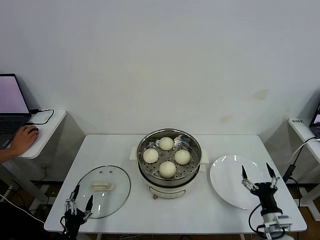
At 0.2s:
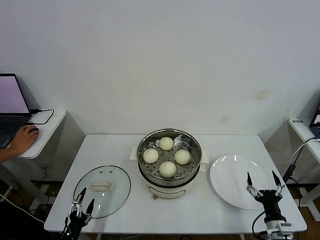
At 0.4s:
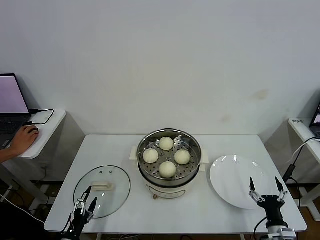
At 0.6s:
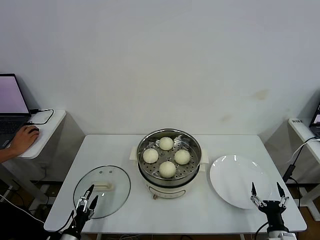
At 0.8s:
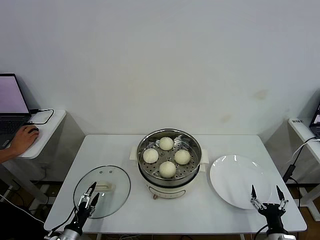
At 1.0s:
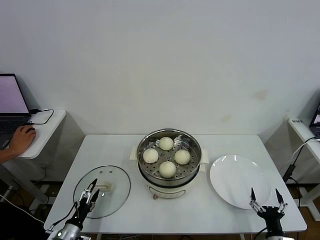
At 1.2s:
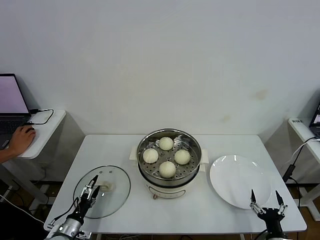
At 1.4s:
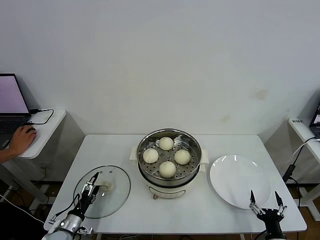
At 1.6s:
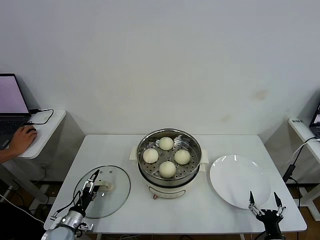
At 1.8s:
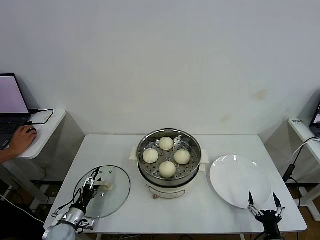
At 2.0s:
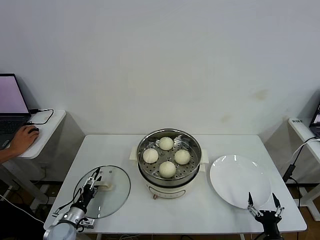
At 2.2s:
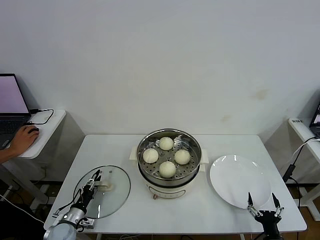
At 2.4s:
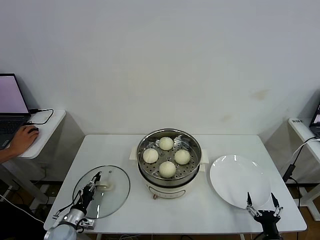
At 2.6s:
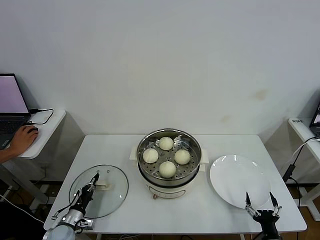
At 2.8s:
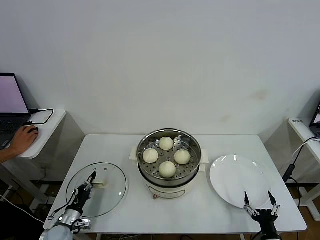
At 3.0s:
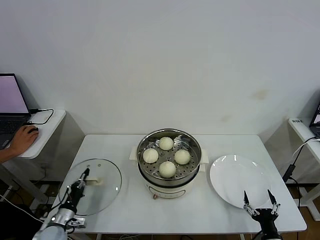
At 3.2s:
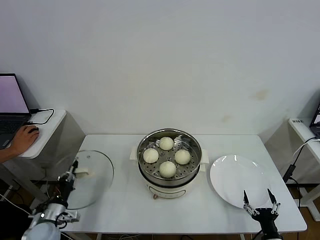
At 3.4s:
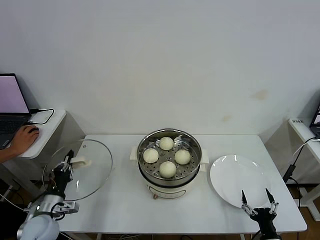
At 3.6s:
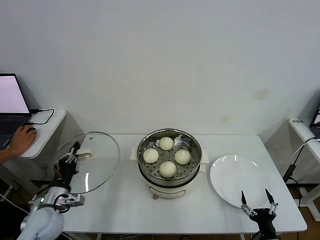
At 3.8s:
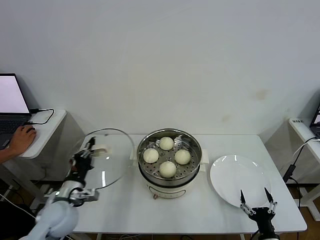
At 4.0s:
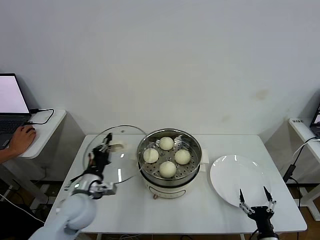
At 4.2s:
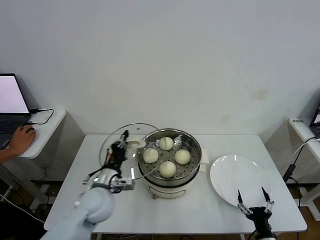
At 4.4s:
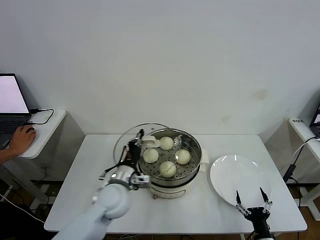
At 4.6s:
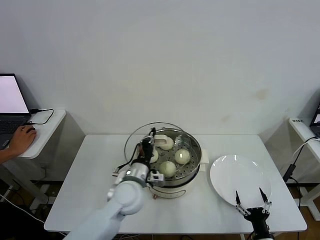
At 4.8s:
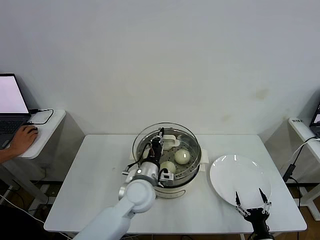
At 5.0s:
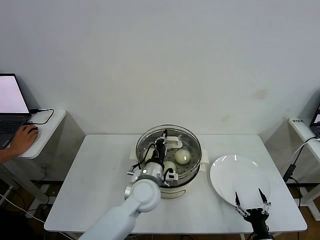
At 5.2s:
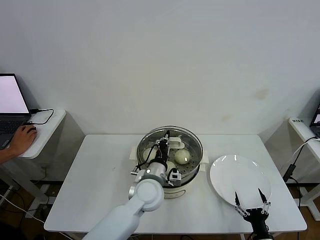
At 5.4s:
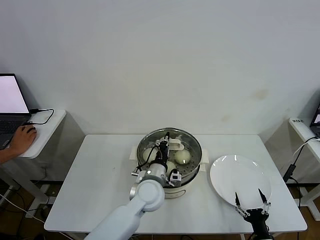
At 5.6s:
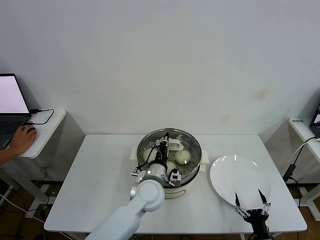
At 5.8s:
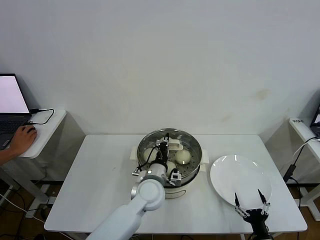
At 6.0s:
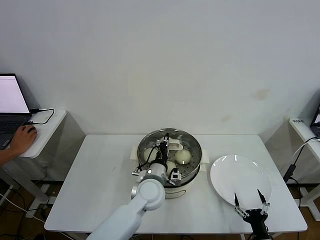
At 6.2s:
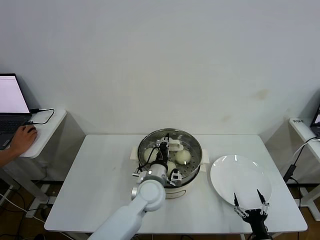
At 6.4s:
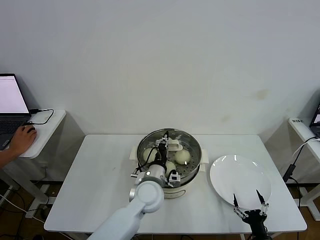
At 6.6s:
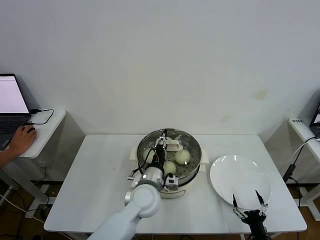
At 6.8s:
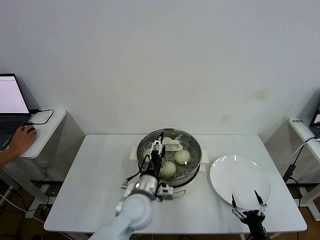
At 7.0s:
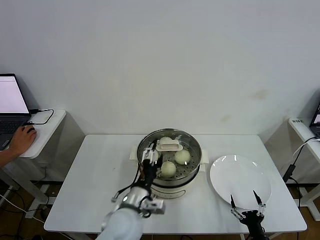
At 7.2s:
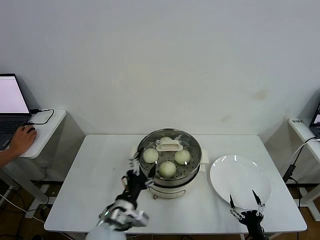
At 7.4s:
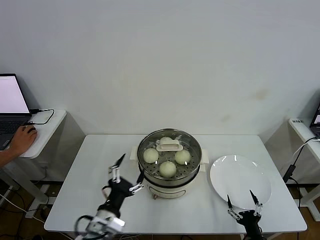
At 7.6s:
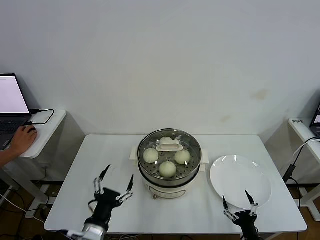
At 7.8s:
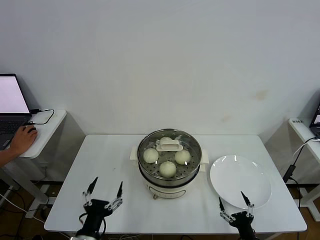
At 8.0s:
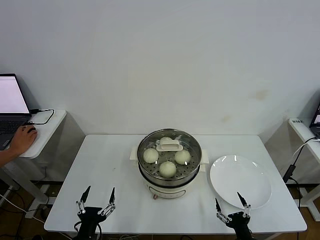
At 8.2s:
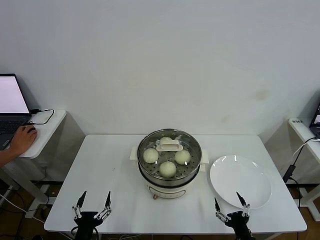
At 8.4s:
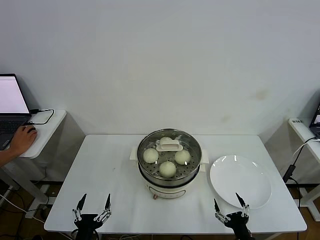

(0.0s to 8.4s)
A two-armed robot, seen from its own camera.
Step, 0.0s - 2.6s: Grasp the pot lid with left gripper.
Step, 2.8s - 6.8s: Place the pot lid on the steamer with left gripper.
0.0s - 1.4s: The left gripper shifts approximately 10 cm forward. Meanwhile the right gripper is displaced backward and downward by roughly 10 cm.
1.4s - 2.8s: The left gripper closes its fingers.
2.8s - 4.2s: The left gripper travels upward and to the right by about 25 cm.
4.2s - 5.6s: The left gripper goes about 15 cm to the right.
5.6s - 7.0s: The left gripper moves backward and to the left, about 10 cm, and opens up.
7.0s - 8.4s: The left gripper is displaced to the left, backward and downward by about 25 cm, while the right gripper travels to the left by approximately 5 cm.

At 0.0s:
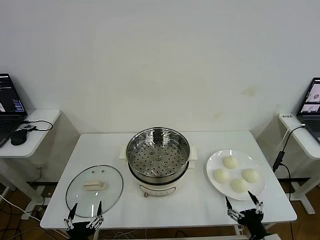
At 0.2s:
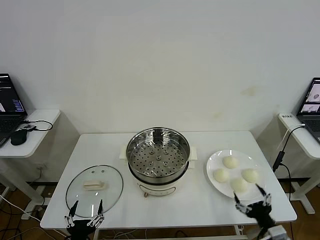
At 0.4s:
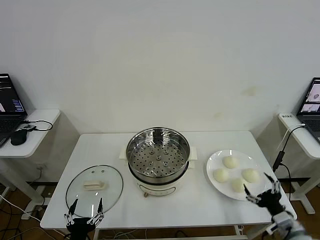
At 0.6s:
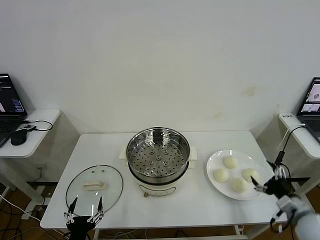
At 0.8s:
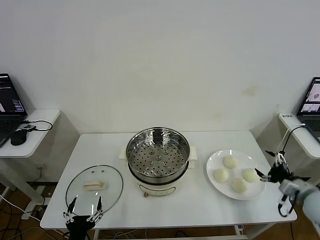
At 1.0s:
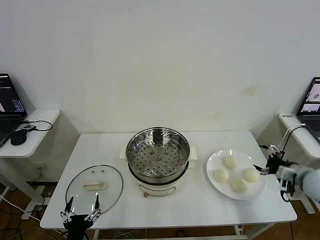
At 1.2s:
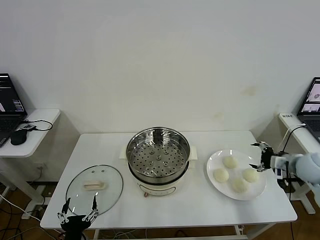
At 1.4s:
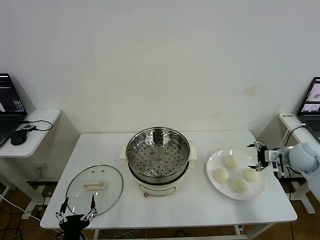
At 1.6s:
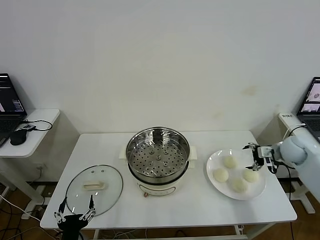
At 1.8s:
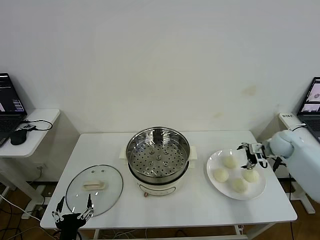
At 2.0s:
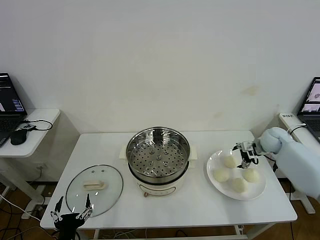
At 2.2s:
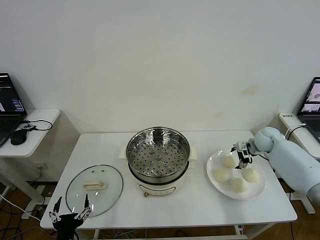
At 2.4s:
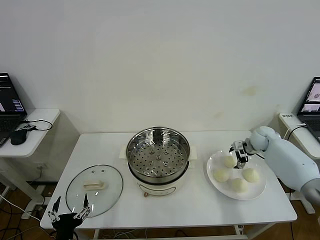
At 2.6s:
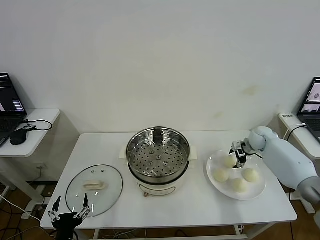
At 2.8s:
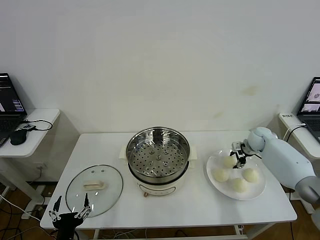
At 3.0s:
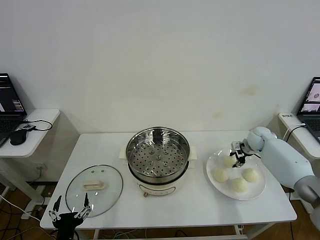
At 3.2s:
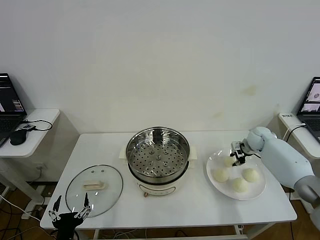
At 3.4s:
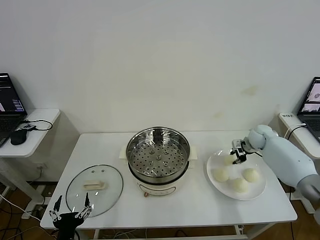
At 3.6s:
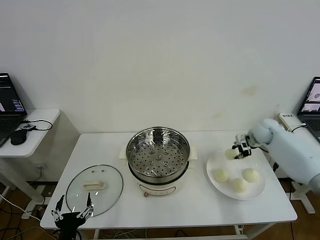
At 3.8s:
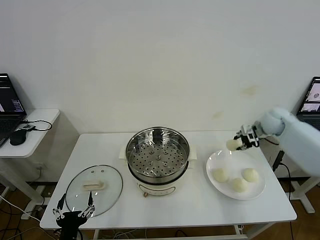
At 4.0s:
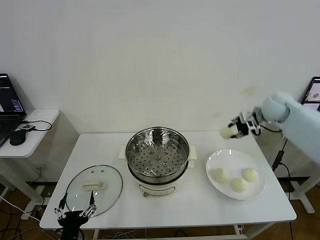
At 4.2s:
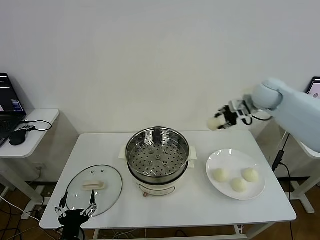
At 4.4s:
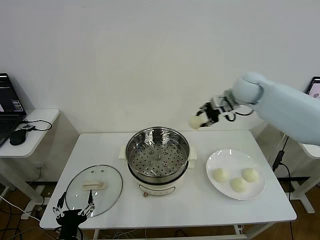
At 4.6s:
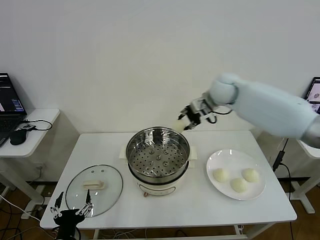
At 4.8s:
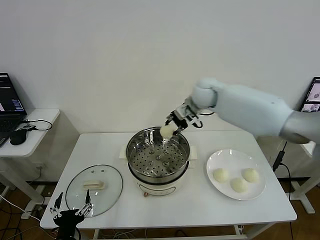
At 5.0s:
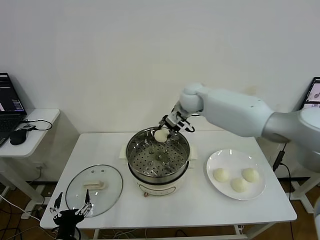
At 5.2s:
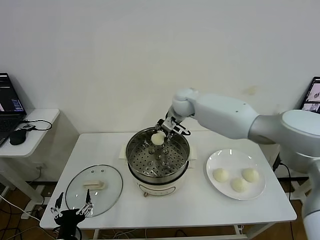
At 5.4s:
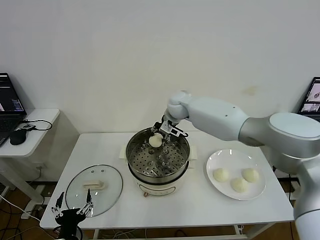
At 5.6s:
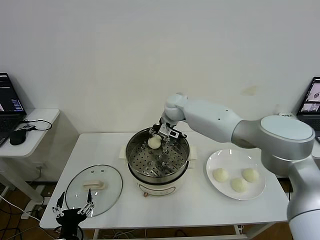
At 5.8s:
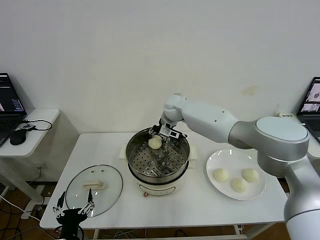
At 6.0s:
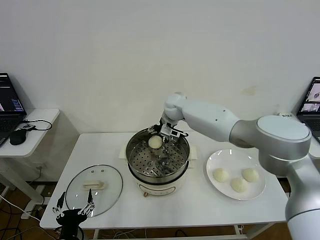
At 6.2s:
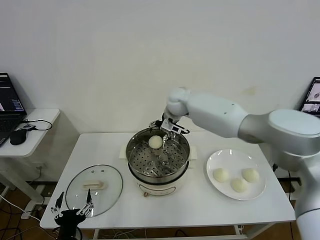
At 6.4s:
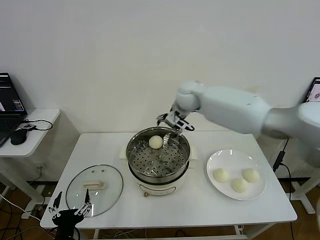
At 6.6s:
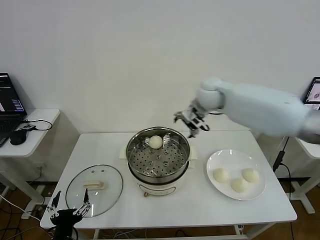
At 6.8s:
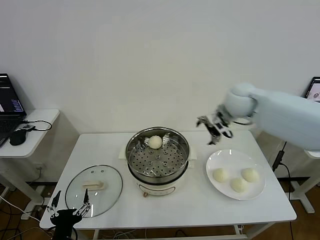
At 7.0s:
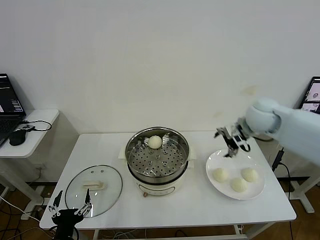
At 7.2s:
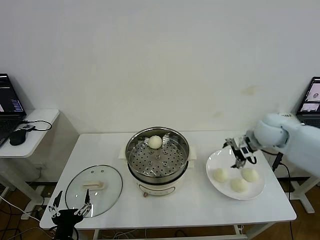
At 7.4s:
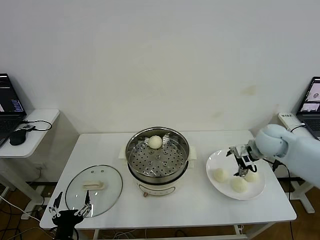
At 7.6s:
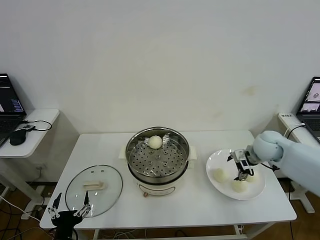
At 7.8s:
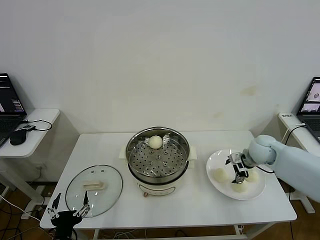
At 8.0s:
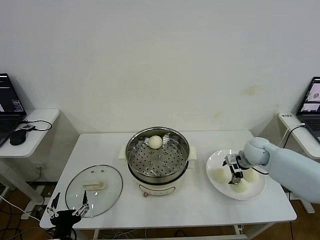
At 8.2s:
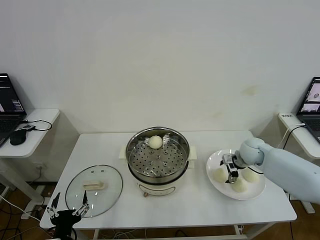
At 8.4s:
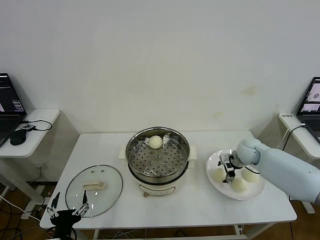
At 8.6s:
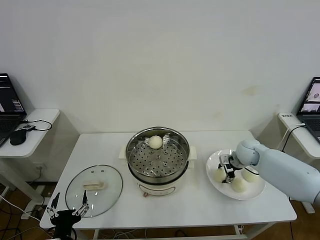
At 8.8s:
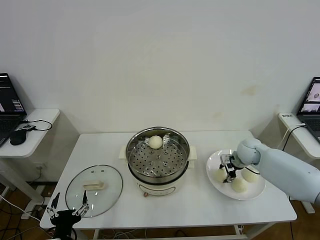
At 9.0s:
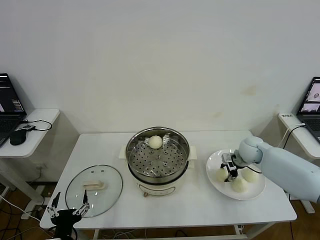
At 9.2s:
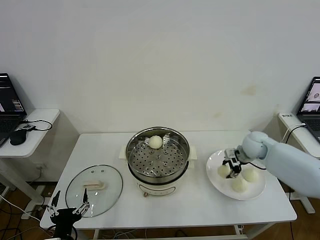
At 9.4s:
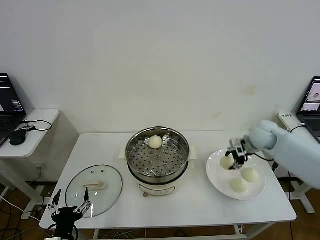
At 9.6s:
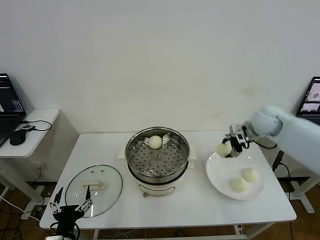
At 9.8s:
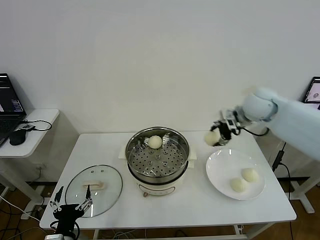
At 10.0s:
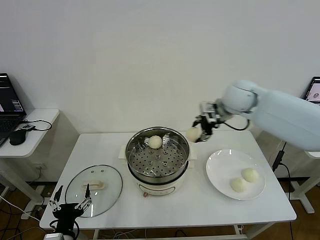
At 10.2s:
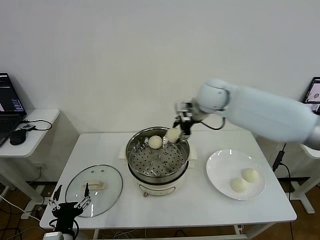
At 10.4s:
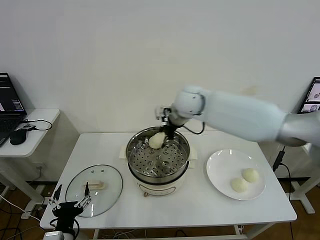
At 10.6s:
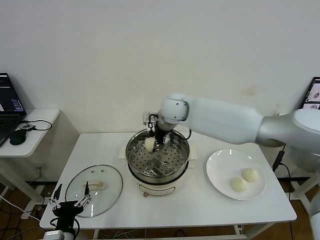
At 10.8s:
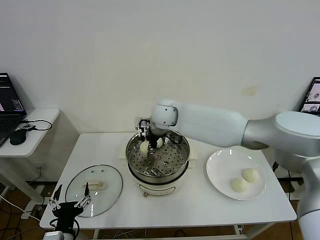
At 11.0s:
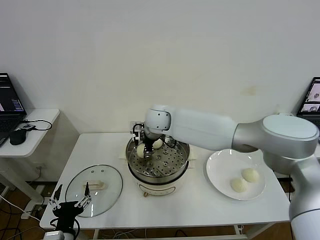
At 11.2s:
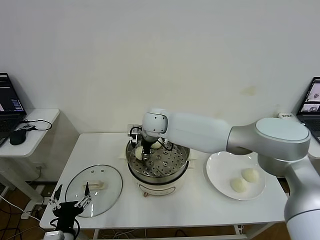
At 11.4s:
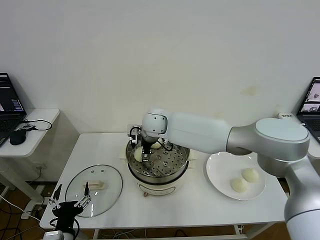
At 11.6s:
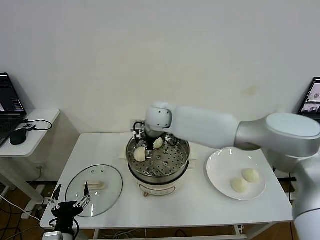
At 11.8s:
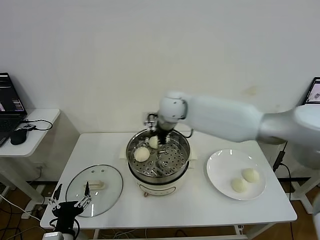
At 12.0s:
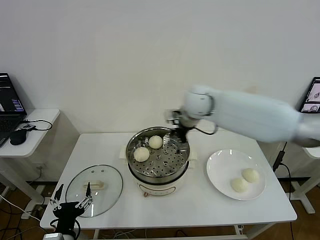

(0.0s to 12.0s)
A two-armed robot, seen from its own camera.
Step, 0.0s - 3.2s: Grasp the baozi in the plate with right gripper.
Step, 3.4s - 5.8s: Place the baozi on the steamer with right gripper.
Step, 6.2s - 8.6s: Grasp the baozi in the plate with right gripper.
Step, 8.8s - 11.4s: Place the baozi on the steamer with right gripper.
1.6s - 3.0s: The right gripper moves forward and downward, approximately 10 cm, and closes.
3.0s - 4.4s: The right gripper heads upward and to the left, covering roughly 30 cm.
4.4s - 6.0s: The right gripper shifts approximately 20 cm to the left and downward, and opens its fingers.
6.0s - 7.6s: The right gripper shifts about 35 cm to the right and backward.
7.6s - 9.0s: The right gripper closes its fingers.
9.0s - 10.4s: The right gripper goes about 35 cm to the left and upward.
10.4s - 12.0s: The right gripper is displaced to the right by approximately 10 cm, and opens up.

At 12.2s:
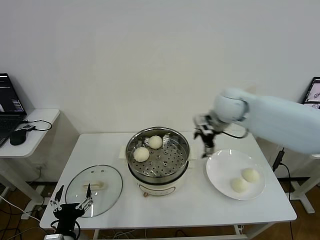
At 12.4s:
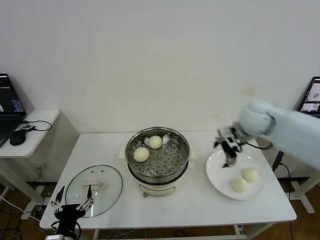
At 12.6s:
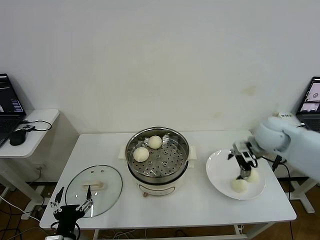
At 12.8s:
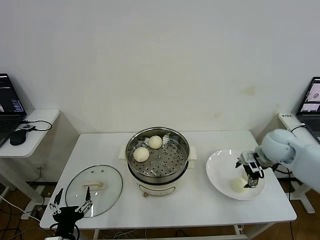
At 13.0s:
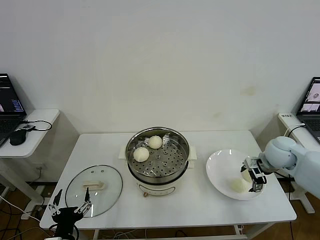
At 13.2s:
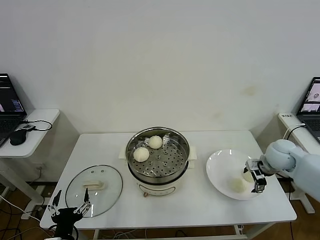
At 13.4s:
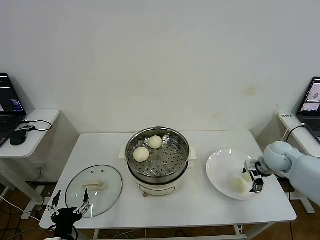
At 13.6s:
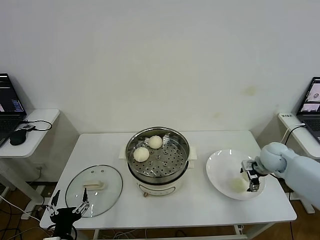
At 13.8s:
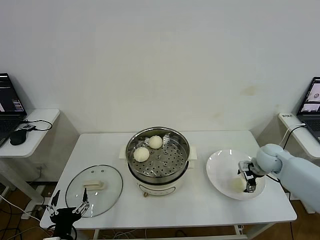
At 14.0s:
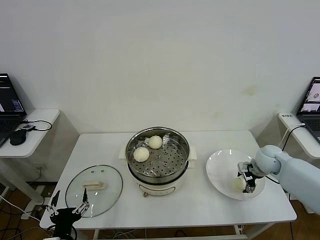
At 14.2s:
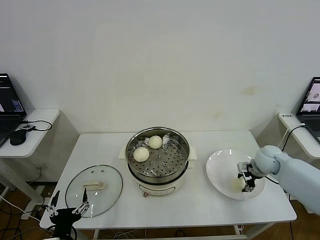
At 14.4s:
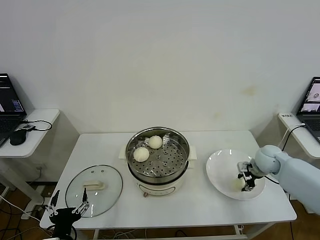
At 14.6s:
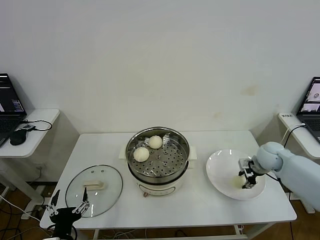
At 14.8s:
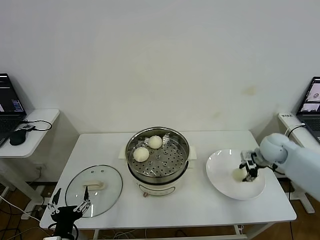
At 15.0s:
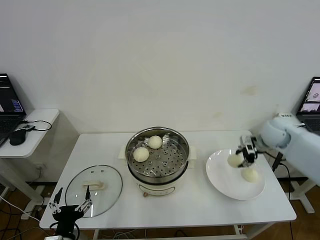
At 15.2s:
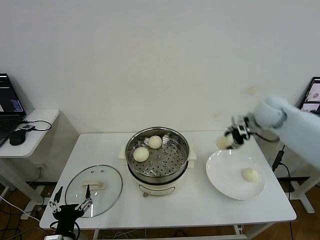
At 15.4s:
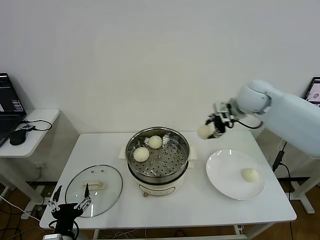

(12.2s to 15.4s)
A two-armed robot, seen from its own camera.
Step, 12.2s - 14.4s: Grasp the baozi in the plate with right gripper.
12.2s - 13.8s: The right gripper shifts about 25 cm downward and to the right.
13.8s - 15.4s: The right gripper shifts some 25 cm upward and to the left, and closes up.
